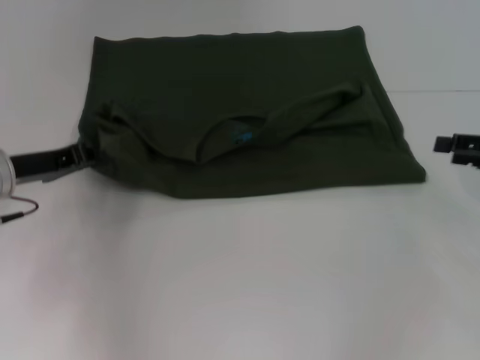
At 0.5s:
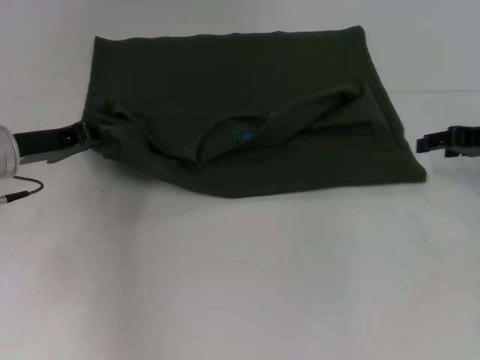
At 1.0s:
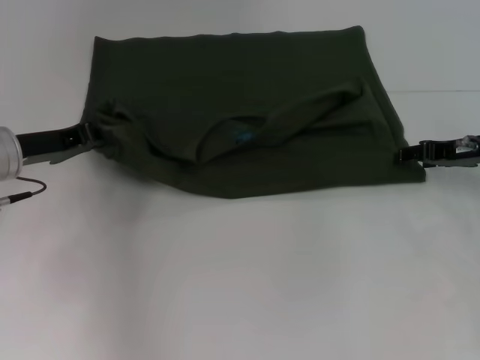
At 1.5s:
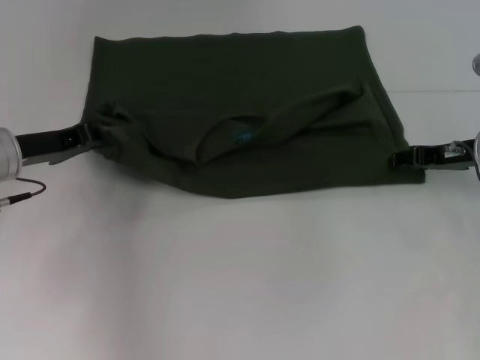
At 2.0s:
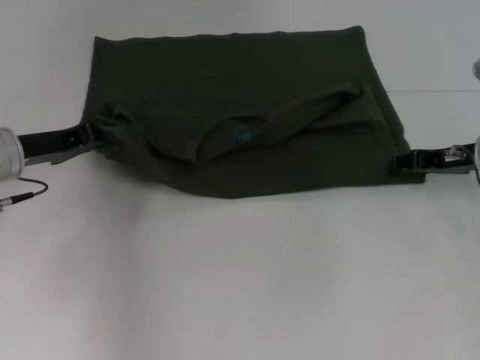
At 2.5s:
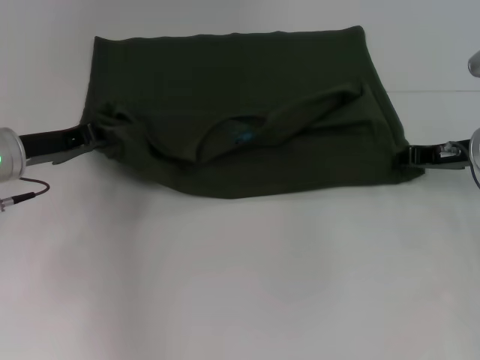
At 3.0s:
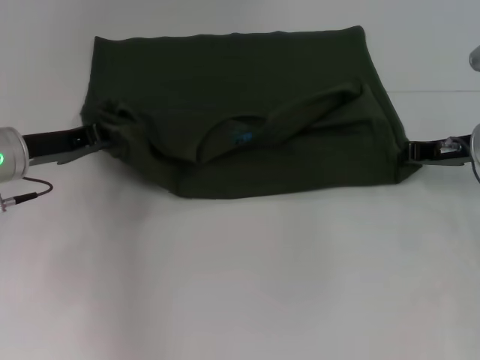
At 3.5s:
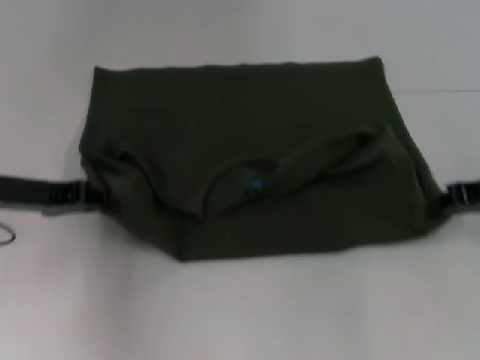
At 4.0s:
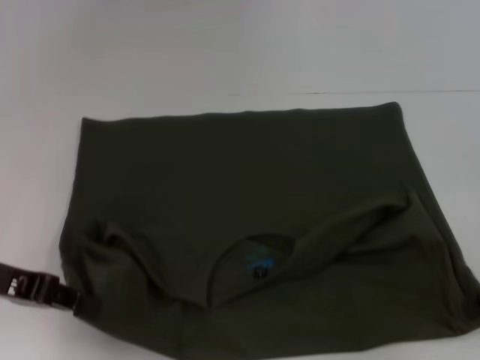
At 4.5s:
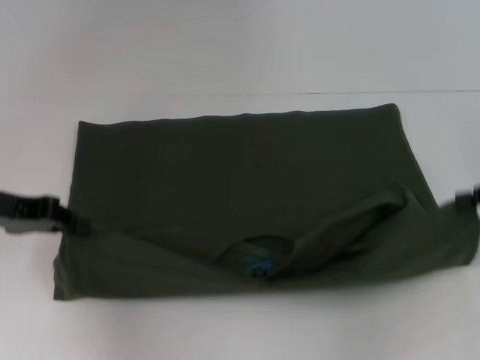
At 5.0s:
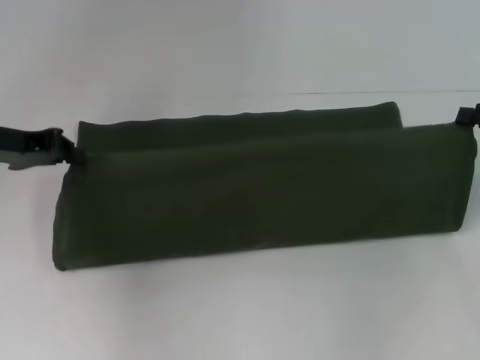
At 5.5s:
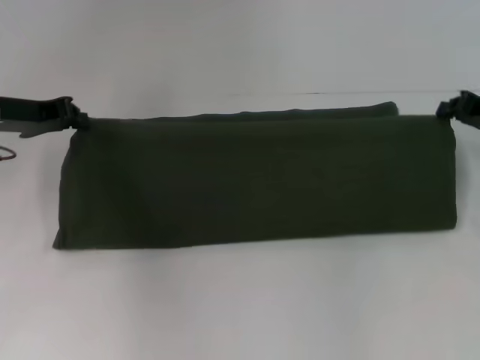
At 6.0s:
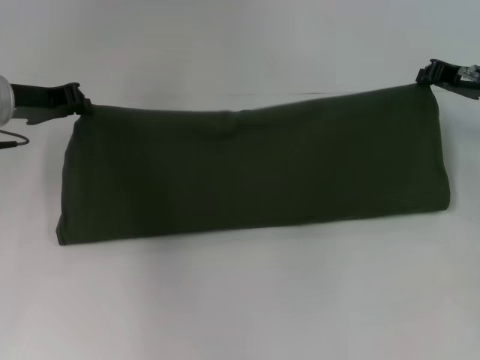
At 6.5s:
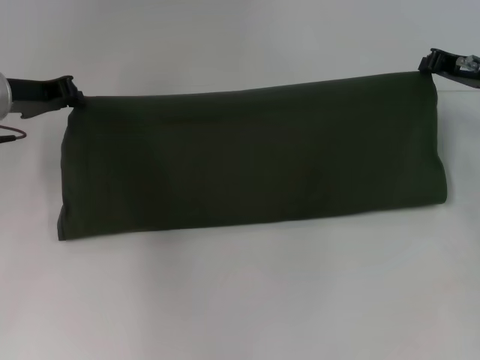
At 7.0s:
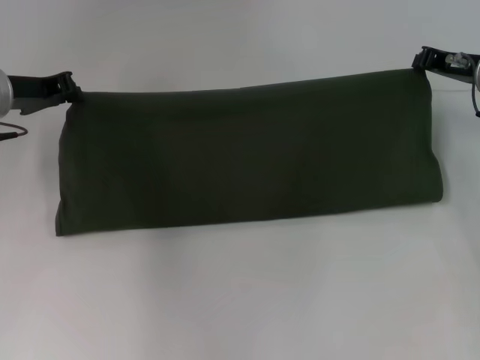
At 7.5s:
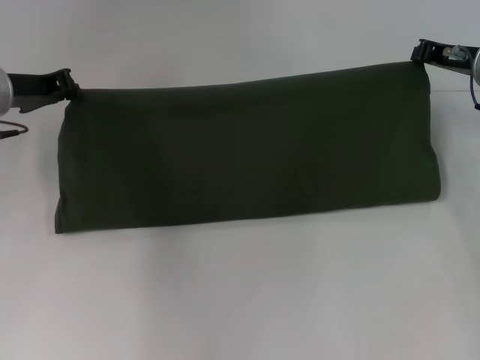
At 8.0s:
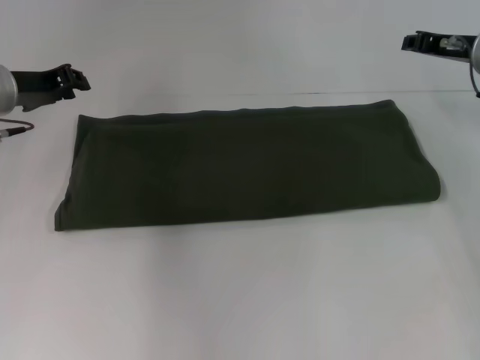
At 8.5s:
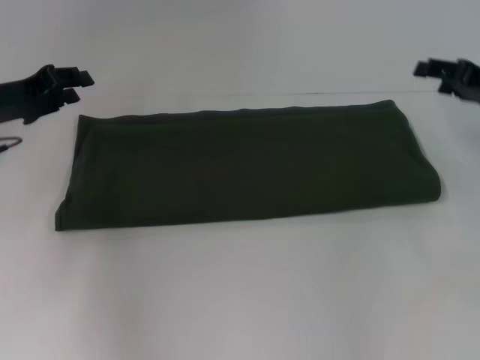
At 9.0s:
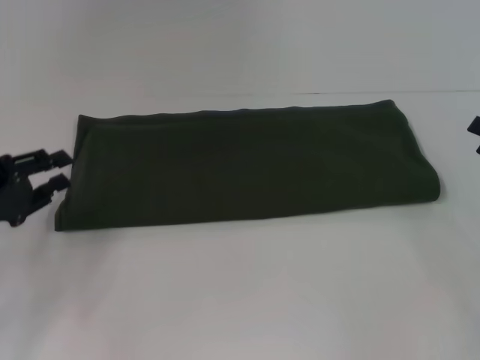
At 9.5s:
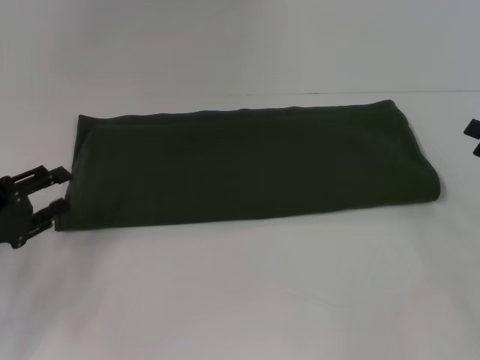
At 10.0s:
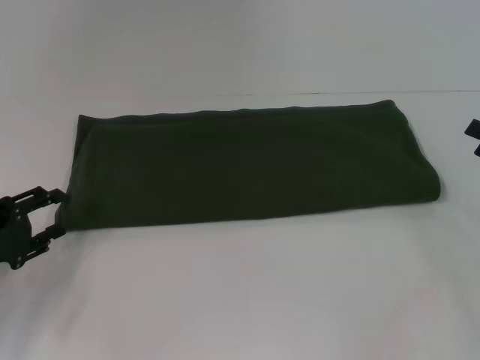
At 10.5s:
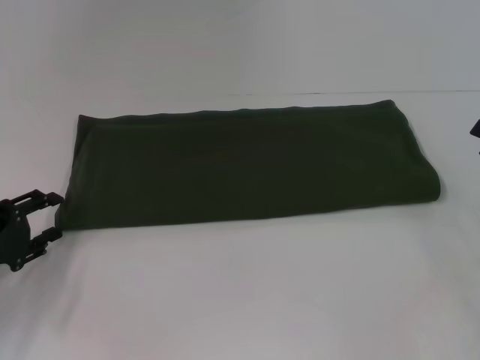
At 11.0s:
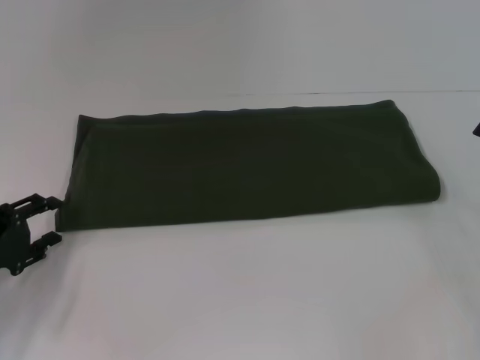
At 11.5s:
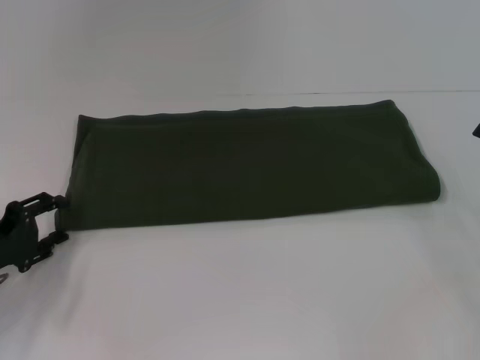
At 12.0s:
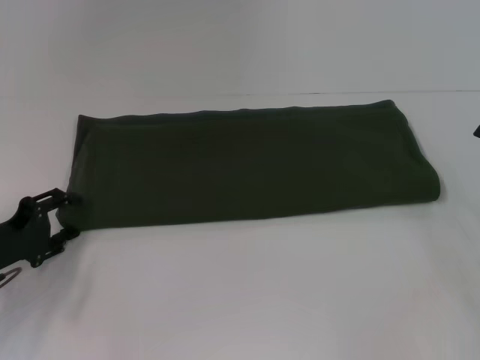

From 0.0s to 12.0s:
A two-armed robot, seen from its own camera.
Step, from 0.0s to 4.0s: Pull the clothes with your left hand.
Step, from 0.0s to 4.0s: Pull the clothes with your right hand.
Step, from 4.5s to 7.5s: Fold the clothes with your right hand.
From 0.0s to 2.0s: The right gripper goes some 10 cm to the left and forward.
From 2.0s to 4.0s: The left gripper shifts approximately 10 cm backward. Meanwhile the right gripper goes some 10 cm backward and to the right, and closes its fingers.
From 4.0s to 6.0s: Both grippers move forward, about 15 cm.
From 6.0s to 8.0s: The grippers make only small movements.
From 8.0s to 10.0s: The right gripper is displaced backward and to the right by about 20 cm, and opens up. Meanwhile the left gripper is displaced backward and downward by roughly 20 cm, and opens up.
From 10.0s to 12.0s: There are only small adjustments of the grippers.

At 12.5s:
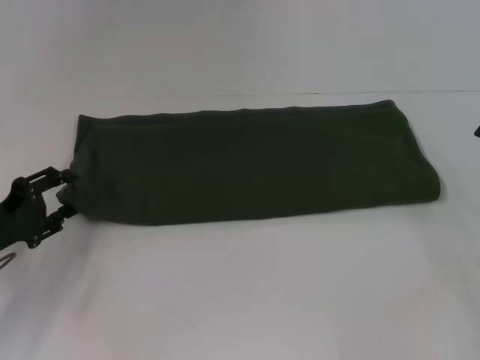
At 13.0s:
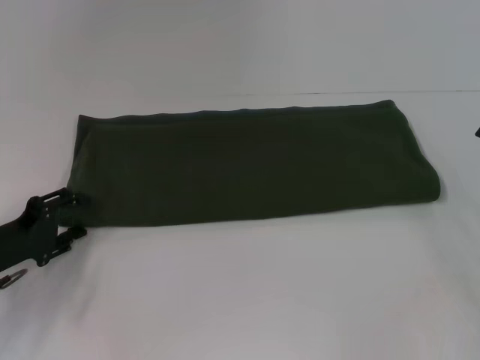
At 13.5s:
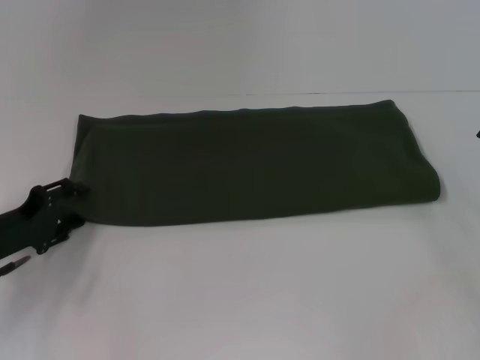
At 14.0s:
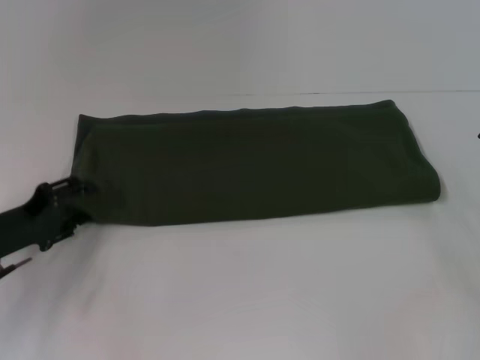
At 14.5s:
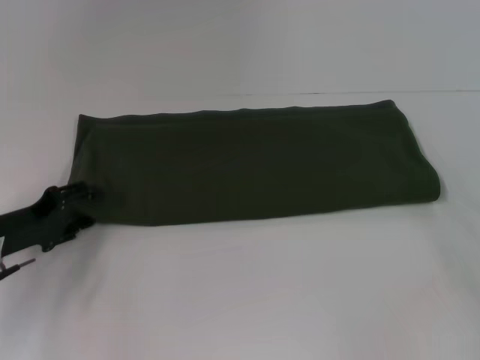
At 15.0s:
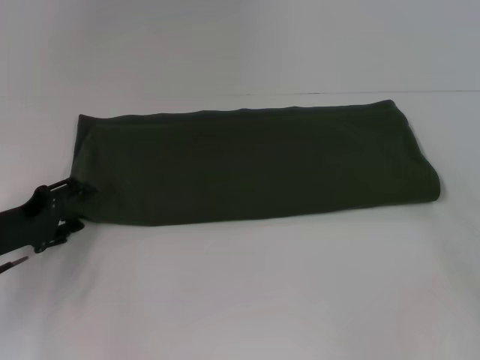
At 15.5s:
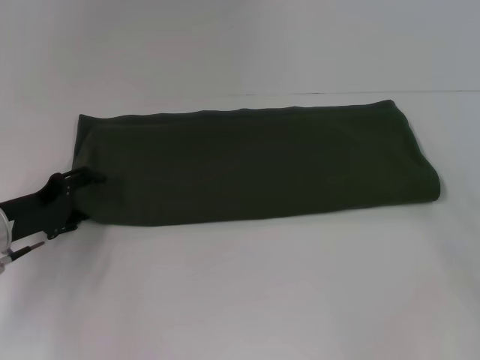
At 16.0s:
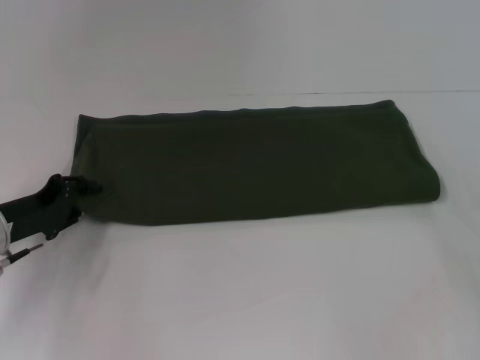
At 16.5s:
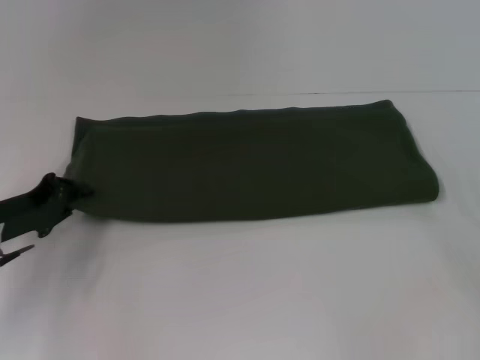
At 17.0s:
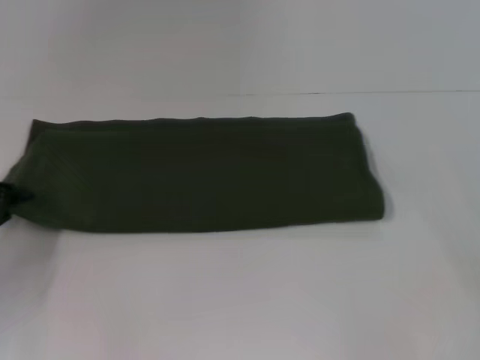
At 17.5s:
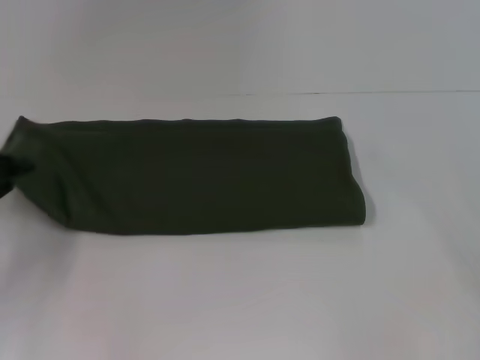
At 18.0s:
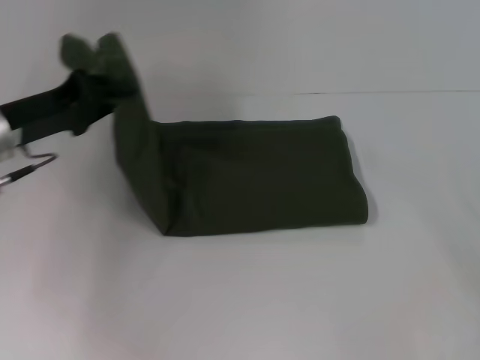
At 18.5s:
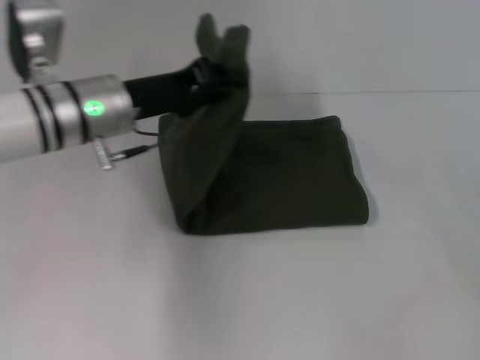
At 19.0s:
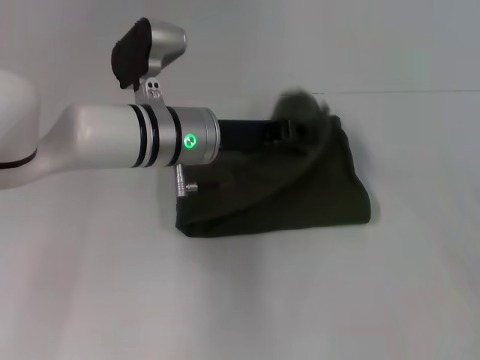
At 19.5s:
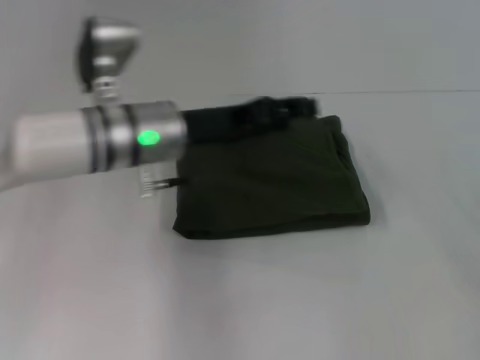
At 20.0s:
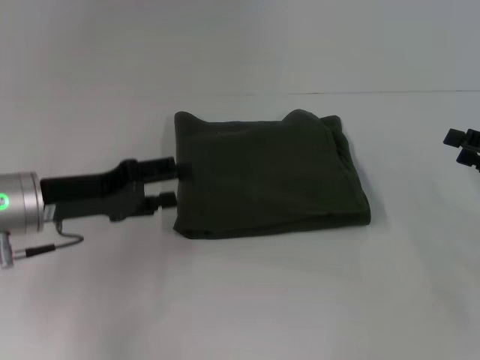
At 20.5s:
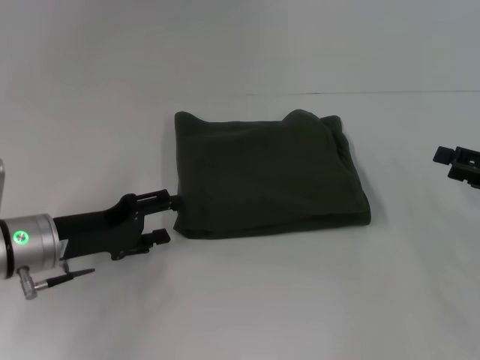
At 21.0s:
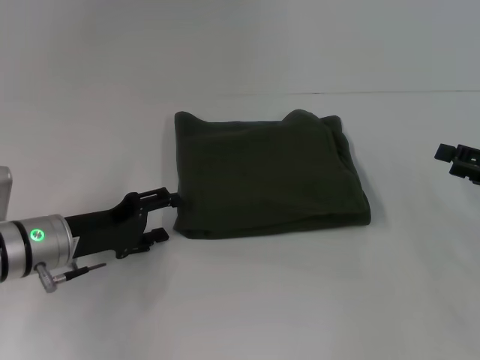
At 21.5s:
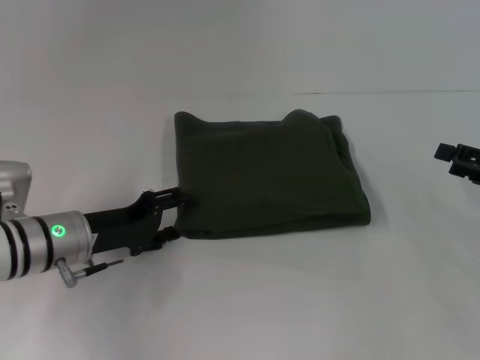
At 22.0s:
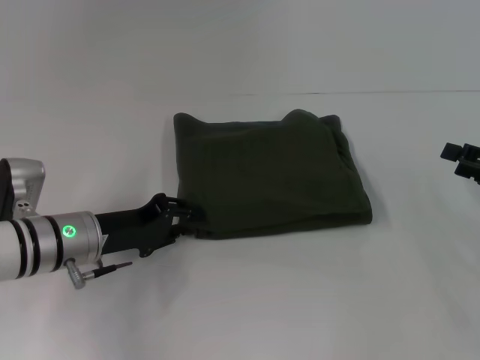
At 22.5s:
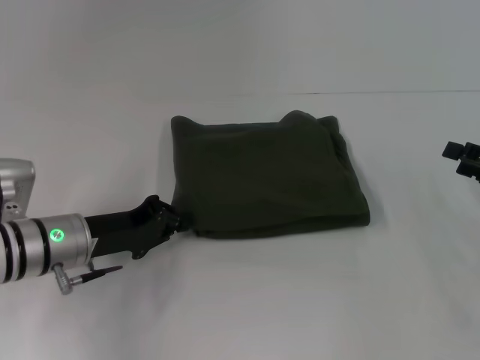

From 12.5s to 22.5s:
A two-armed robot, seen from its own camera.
Step, from 12.5s to 19.0s: Fold the clothes with your left hand.
From 12.5s to 14.5s: The grippers stay close to where they were, moving slightly.
From 14.5s to 16.5s: The left gripper closes.
From 16.5s to 18.5s: The left gripper moves to the right, upward and forward, roughly 20 cm.
From 18.5s to 20.5s: The left gripper heads downward, backward and to the left, covering roughly 15 cm, and opens up.
From 20.5s to 22.5s: The left gripper closes up.

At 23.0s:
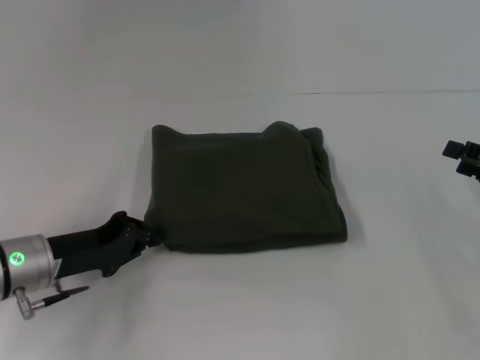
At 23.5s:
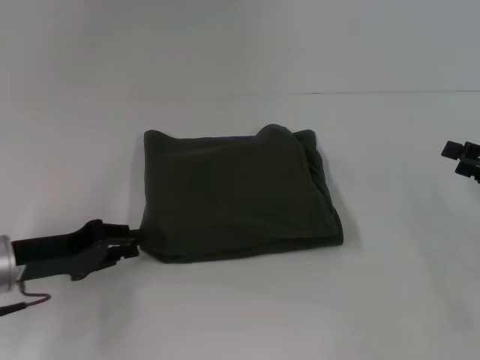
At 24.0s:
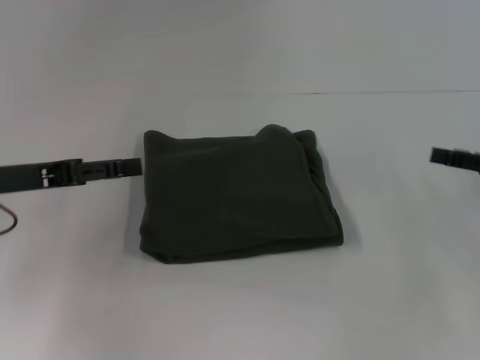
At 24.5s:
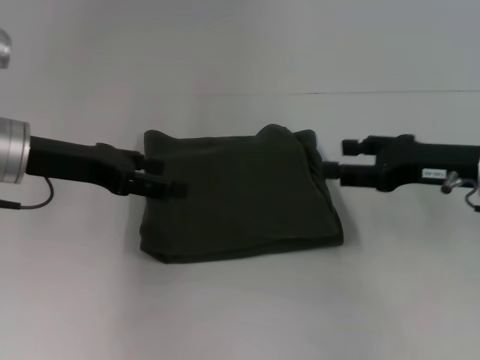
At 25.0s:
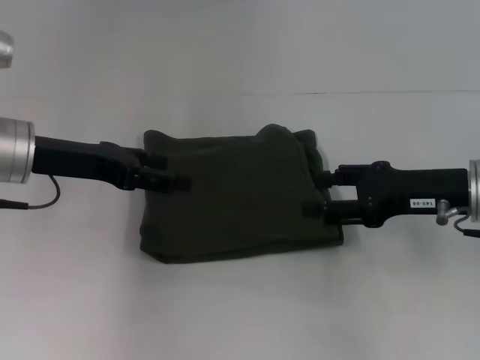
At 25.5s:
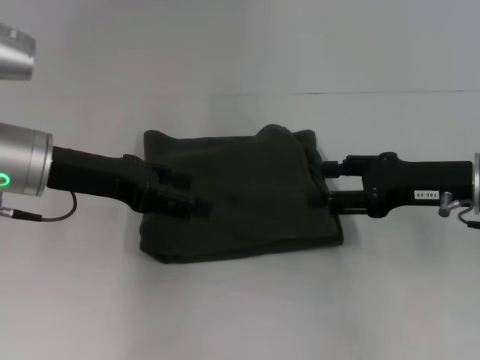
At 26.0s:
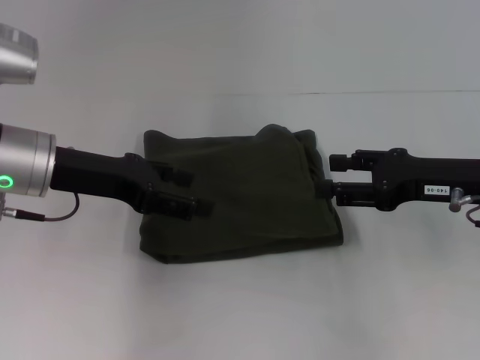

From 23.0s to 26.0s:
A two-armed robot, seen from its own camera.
From 23.0s to 24.5s: The right gripper is displaced to the left by about 10 cm; the left gripper travels upward and forward by roughly 15 cm, and opens.
From 24.5s to 26.0s: The grippers make only small movements.
